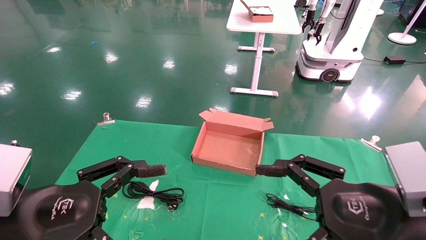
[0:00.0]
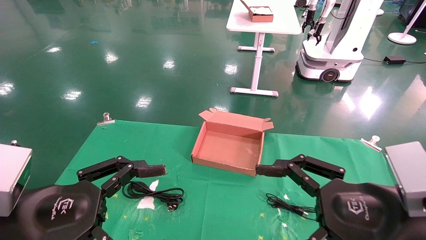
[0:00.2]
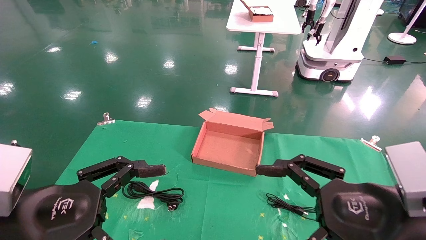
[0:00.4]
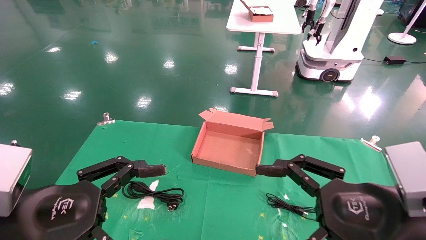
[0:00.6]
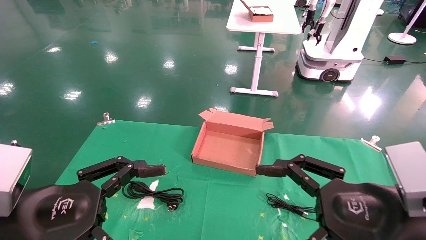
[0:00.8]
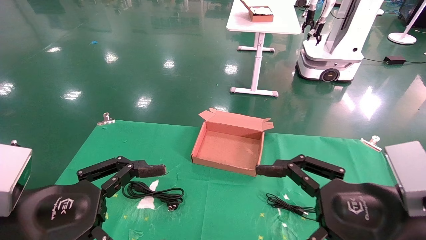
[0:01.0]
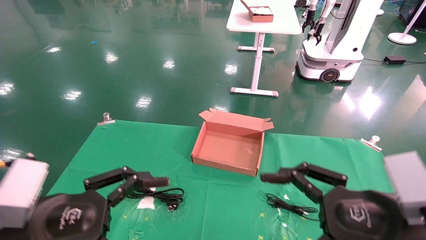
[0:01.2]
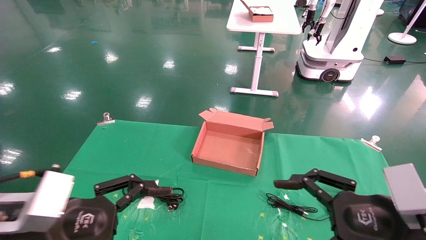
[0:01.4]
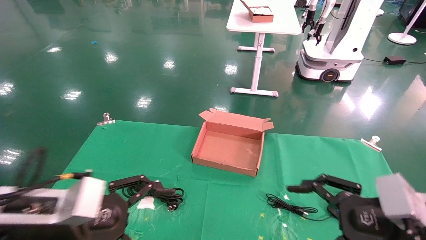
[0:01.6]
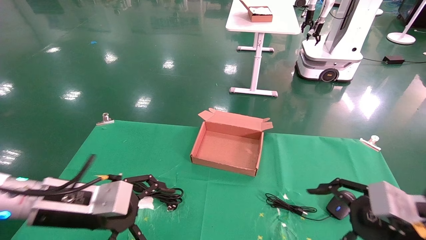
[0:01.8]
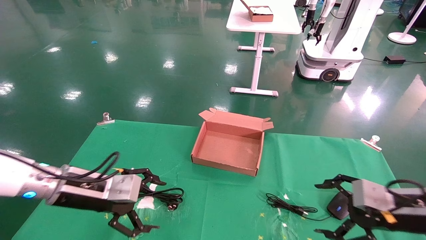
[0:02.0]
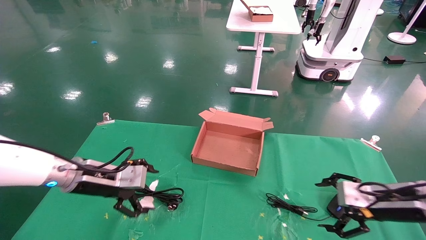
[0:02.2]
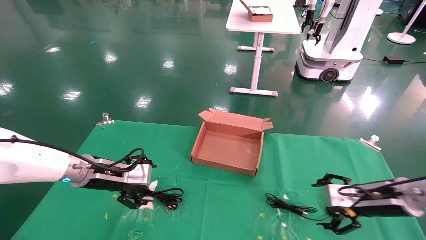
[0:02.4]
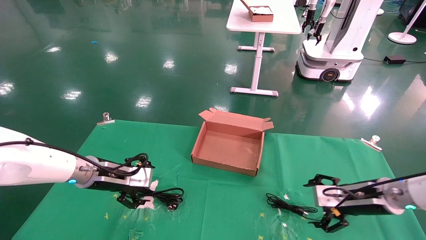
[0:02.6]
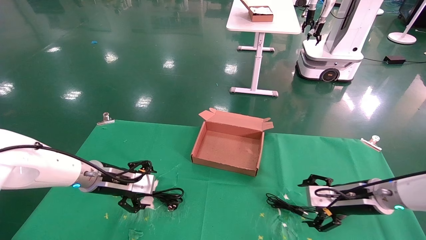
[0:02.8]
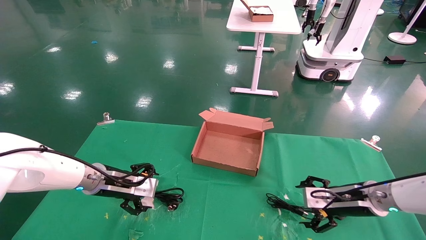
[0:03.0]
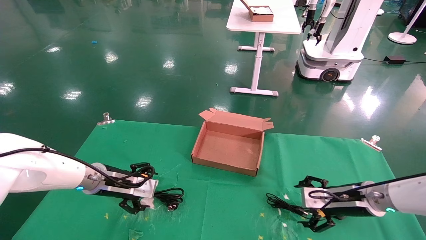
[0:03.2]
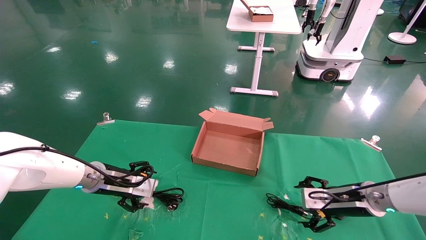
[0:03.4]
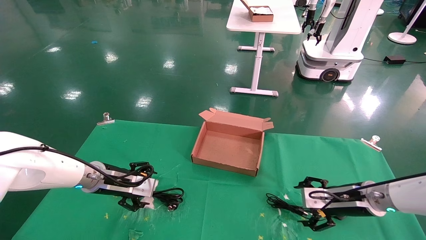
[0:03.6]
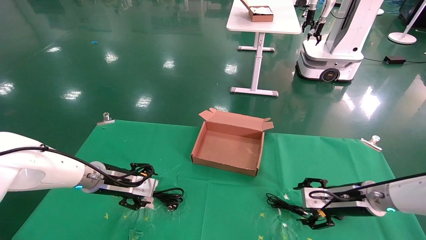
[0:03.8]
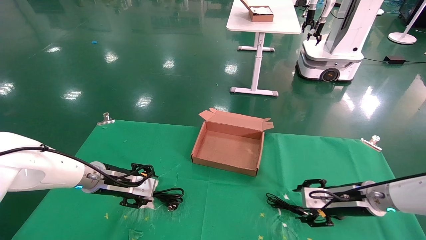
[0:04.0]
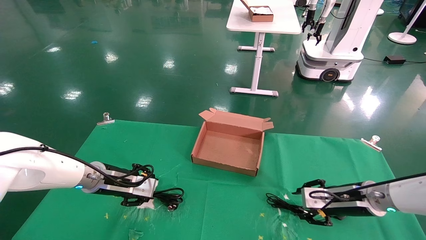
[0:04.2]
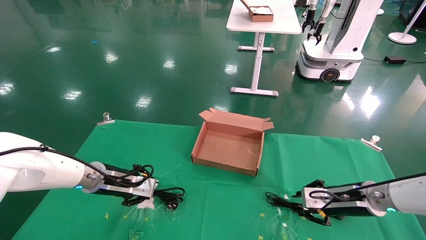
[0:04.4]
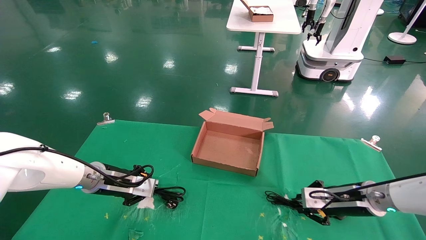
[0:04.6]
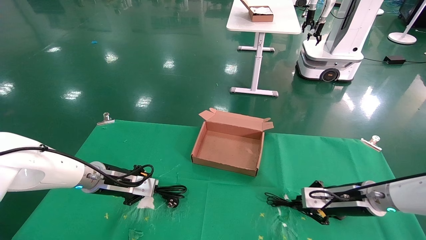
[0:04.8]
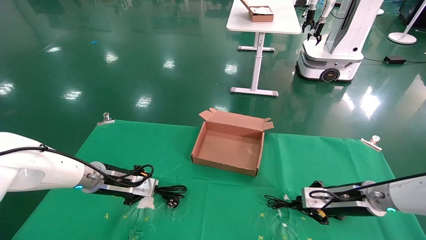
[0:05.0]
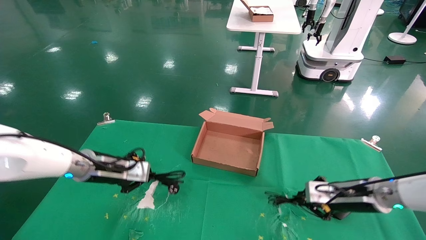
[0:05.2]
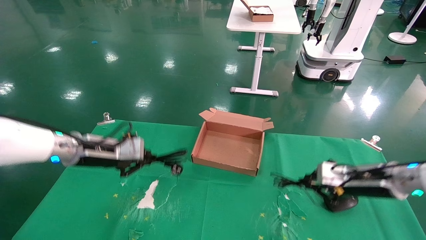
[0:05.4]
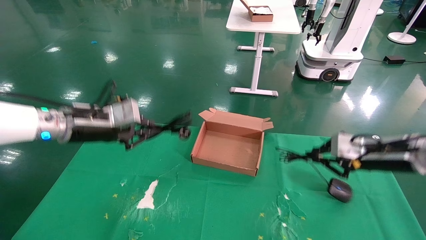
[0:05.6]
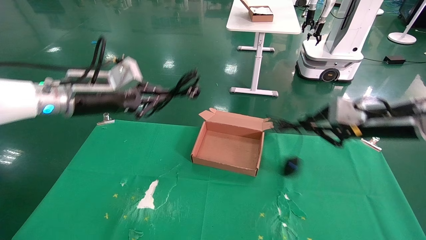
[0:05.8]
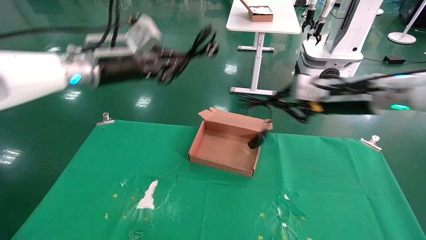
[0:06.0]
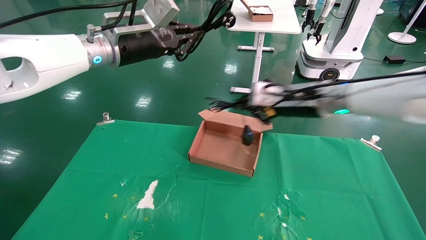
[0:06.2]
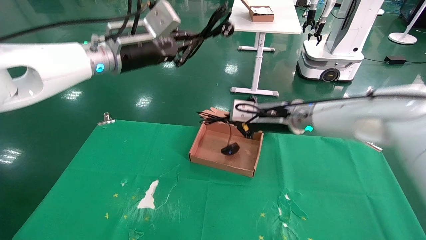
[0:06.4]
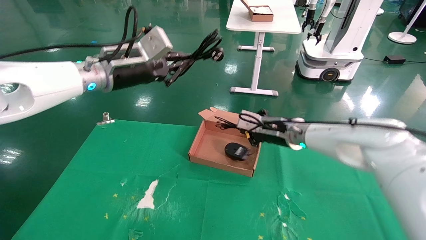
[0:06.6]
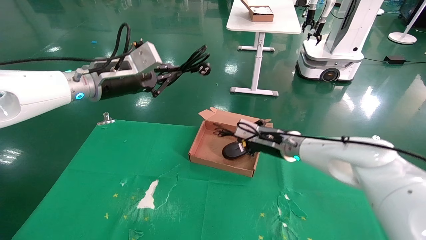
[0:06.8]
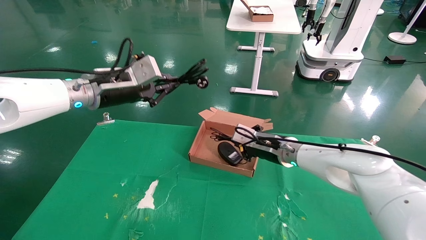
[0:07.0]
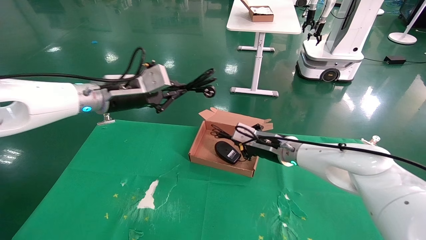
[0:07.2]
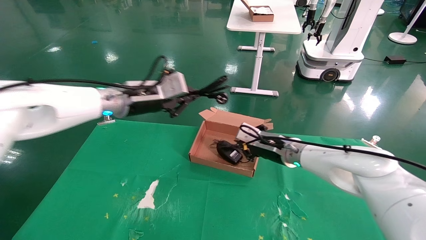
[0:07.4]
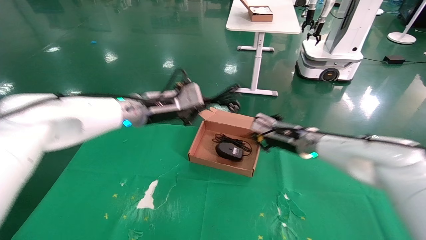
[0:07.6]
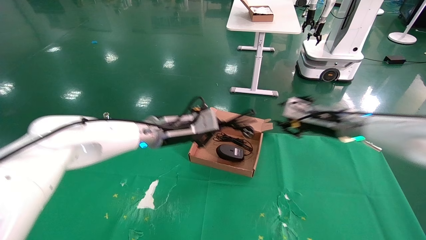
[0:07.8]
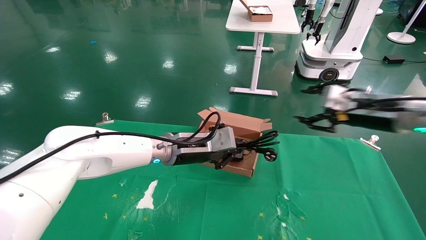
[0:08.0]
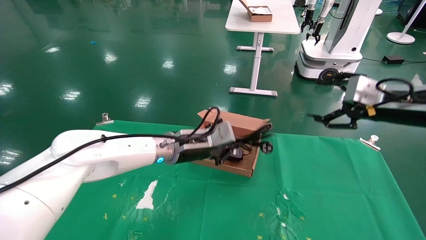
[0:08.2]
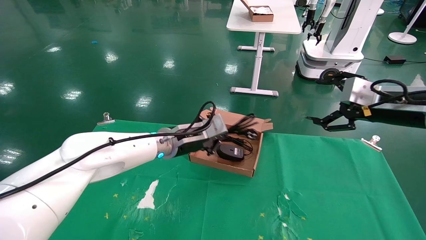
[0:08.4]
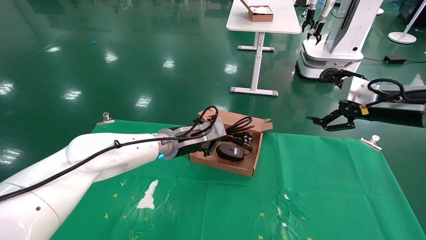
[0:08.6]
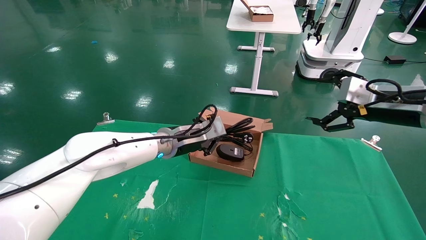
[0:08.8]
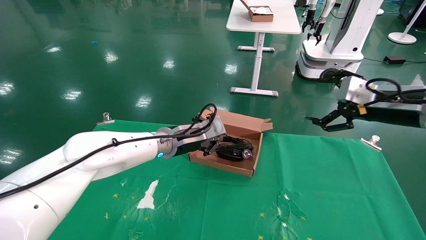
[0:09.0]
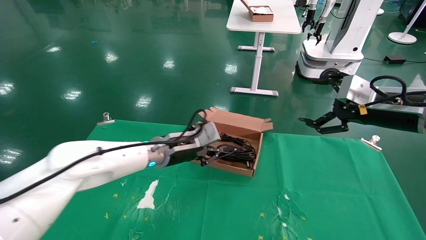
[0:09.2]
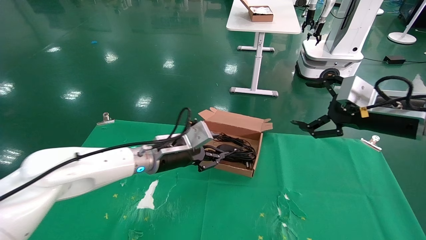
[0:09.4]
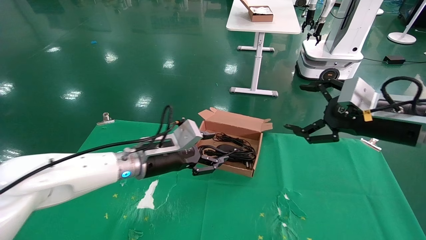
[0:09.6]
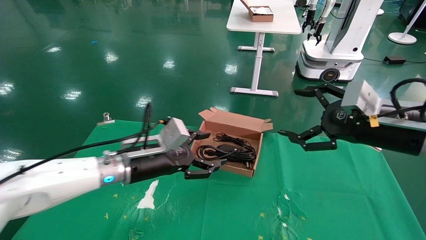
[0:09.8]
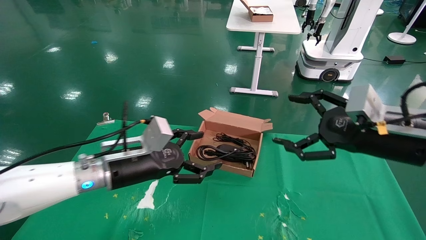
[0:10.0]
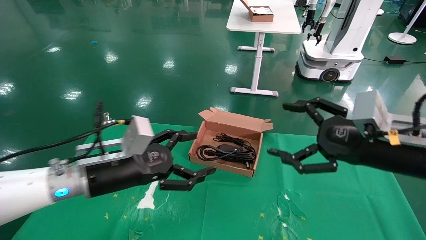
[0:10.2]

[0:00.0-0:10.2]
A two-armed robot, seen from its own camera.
Step, 0:01.6 to 0:05.4: Grab and lift both the mouse and power cord from the accessory packaging area at the same time.
0:00.0 to 0:01.4: There are only small adjustments of the grippers.
0:01.4 to 0:03.0: The right gripper travels forward and downward by about 20 cm. The left gripper heads forward, covering approximately 25 cm.
0:03.0 to 0:04.4: The right gripper closes. Meanwhile the left gripper closes its fingers.
0:04.4 to 0:05.8: Both grippers travel together upward, about 20 cm. The right gripper closes. Meanwhile the left gripper closes up.
0:05.8 to 0:07.2: The right gripper heads to the left, forward and downward, covering roughly 20 cm.
0:07.2 to 0:08.8: The left gripper travels downward and to the right by roughly 15 cm. Meanwhile the right gripper is displaced to the right, upward and backward by some 25 cm, and opens its fingers.
0:08.8 to 0:10.2: The left gripper shifts about 20 cm backward and to the left, and opens its fingers, while the right gripper goes some 10 cm backward, to the left and downward.

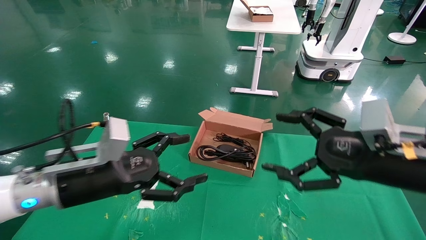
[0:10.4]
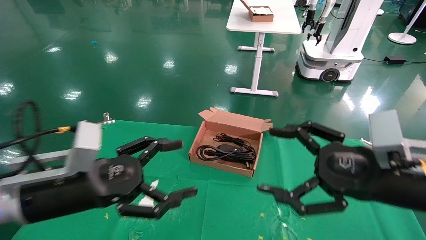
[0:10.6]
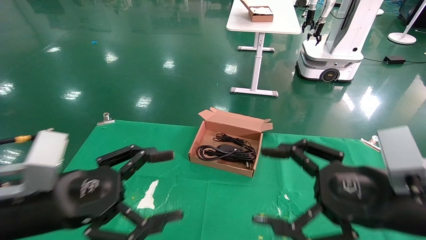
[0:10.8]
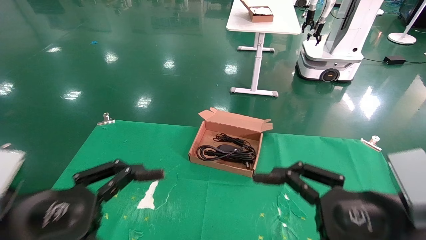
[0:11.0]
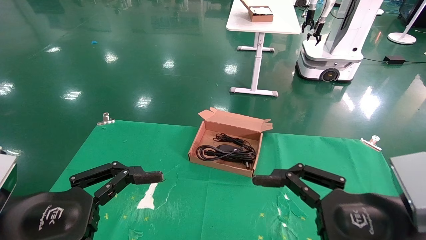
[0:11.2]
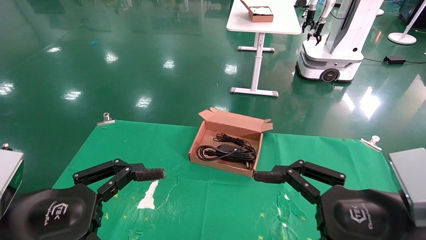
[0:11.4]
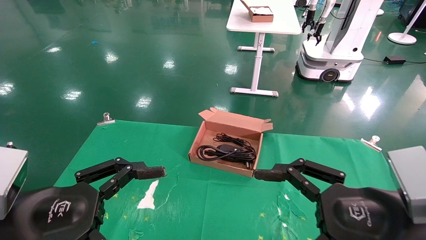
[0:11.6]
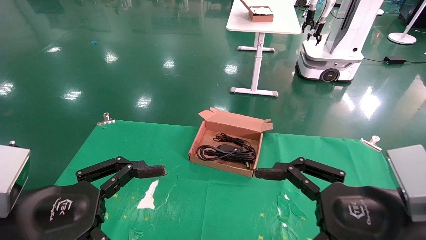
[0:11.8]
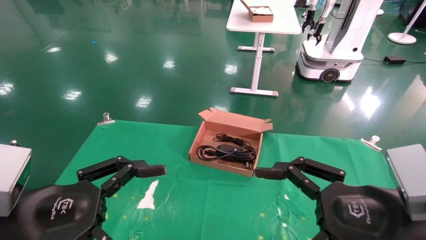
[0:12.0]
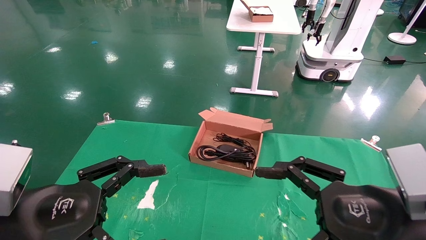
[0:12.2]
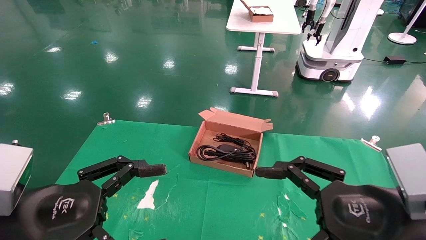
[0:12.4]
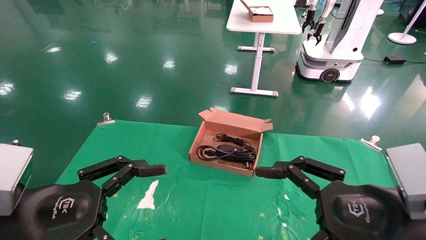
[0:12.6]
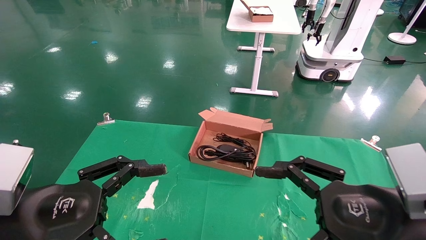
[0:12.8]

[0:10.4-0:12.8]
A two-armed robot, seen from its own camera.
0:10.4 to 0:11.6: The grippers both shift backward by about 10 cm.
0:11.6 to 0:12.8: Both grippers stay about where they are.
